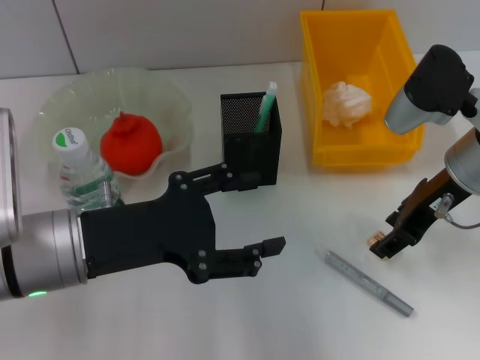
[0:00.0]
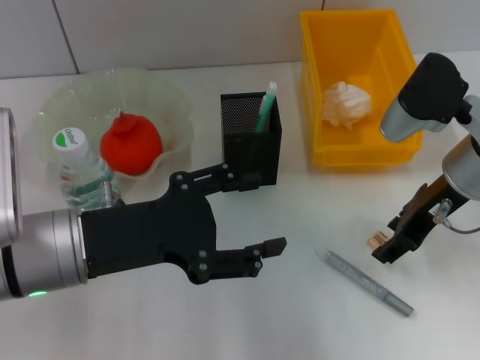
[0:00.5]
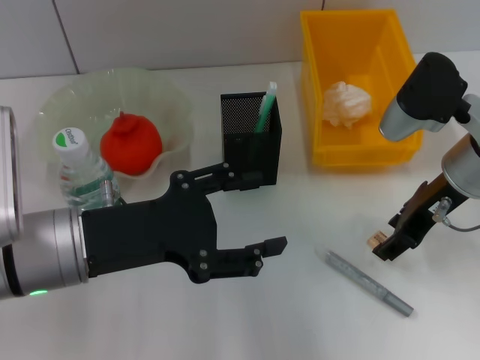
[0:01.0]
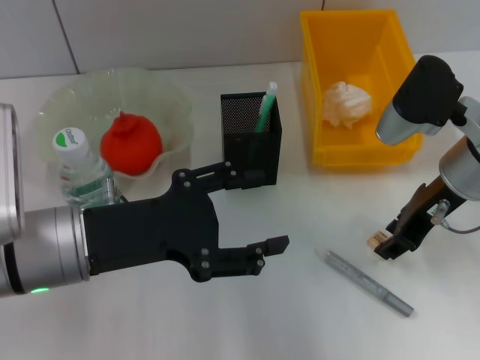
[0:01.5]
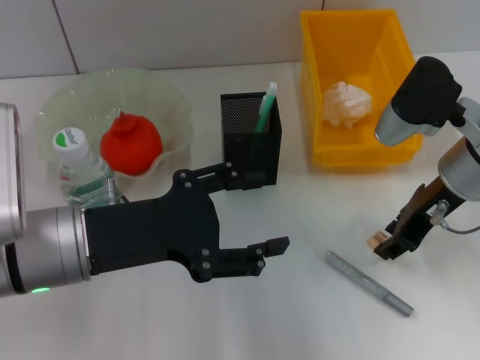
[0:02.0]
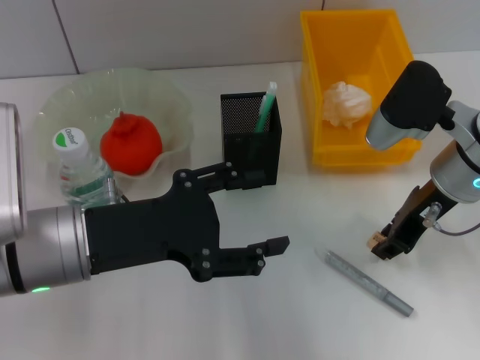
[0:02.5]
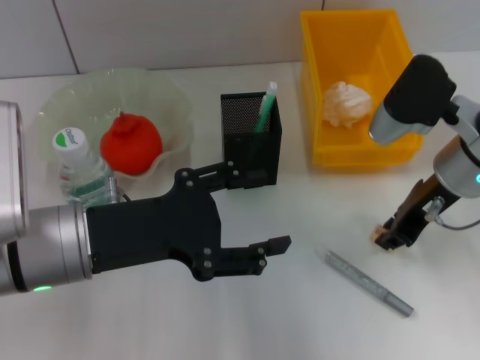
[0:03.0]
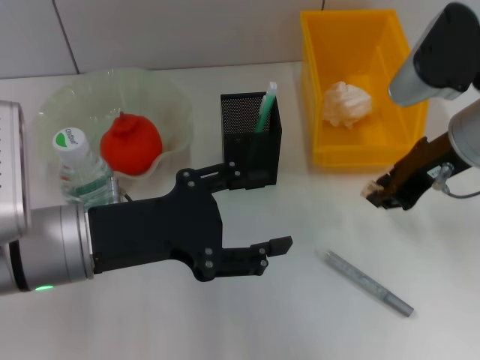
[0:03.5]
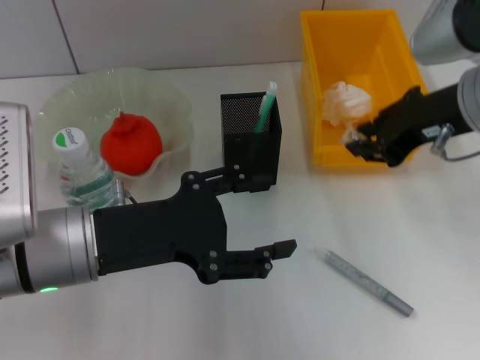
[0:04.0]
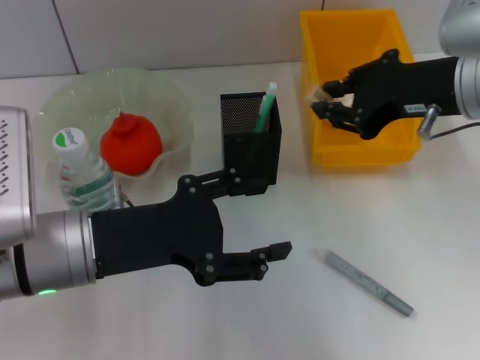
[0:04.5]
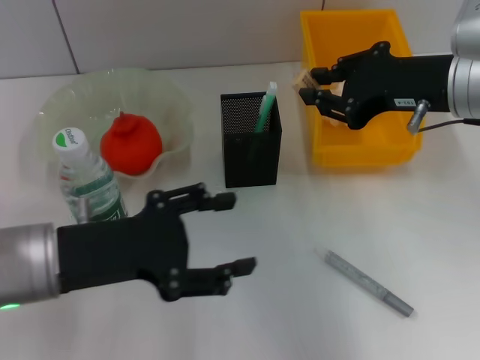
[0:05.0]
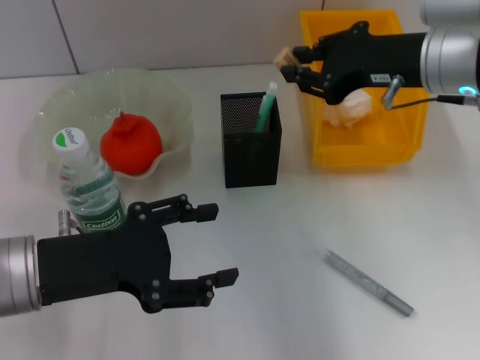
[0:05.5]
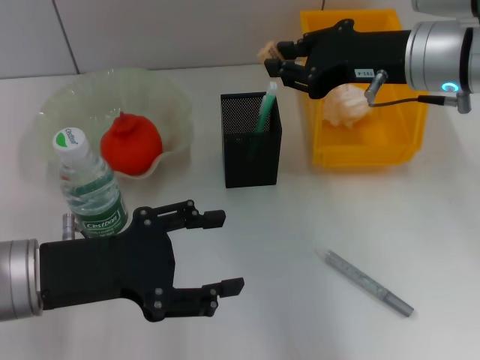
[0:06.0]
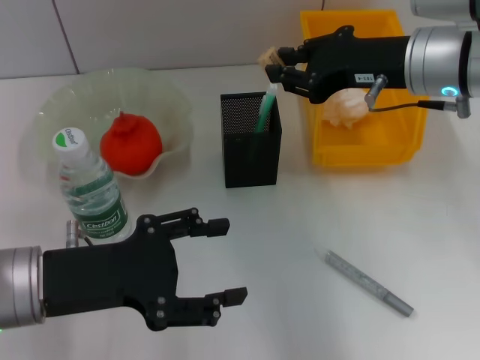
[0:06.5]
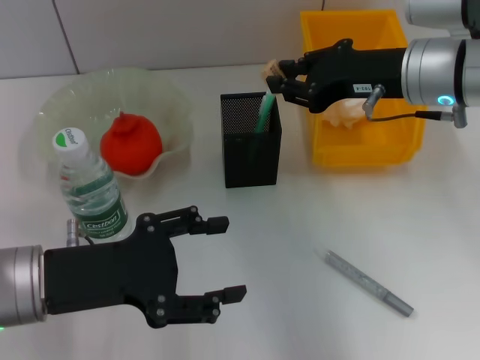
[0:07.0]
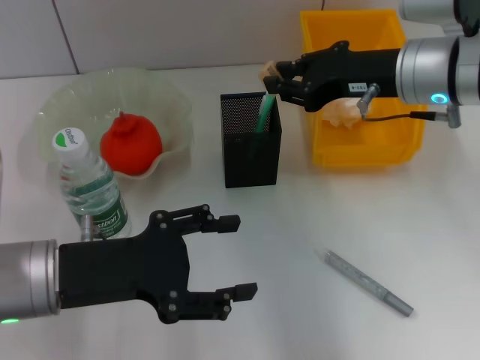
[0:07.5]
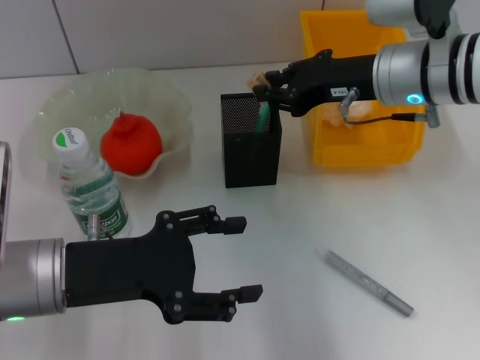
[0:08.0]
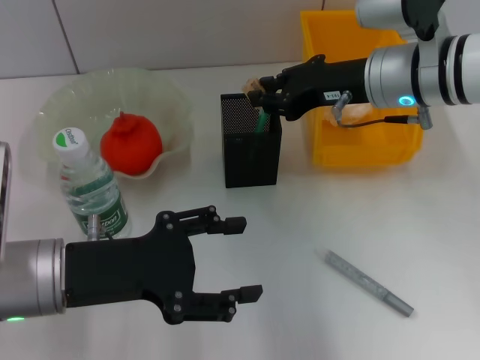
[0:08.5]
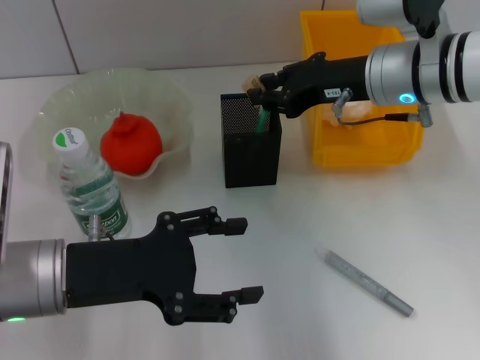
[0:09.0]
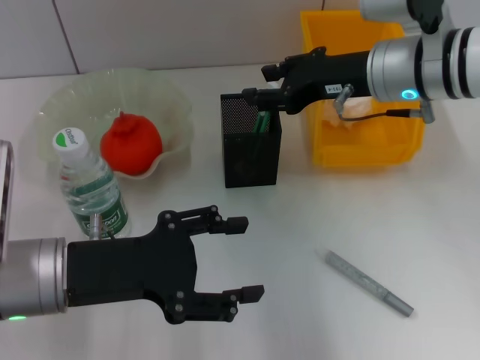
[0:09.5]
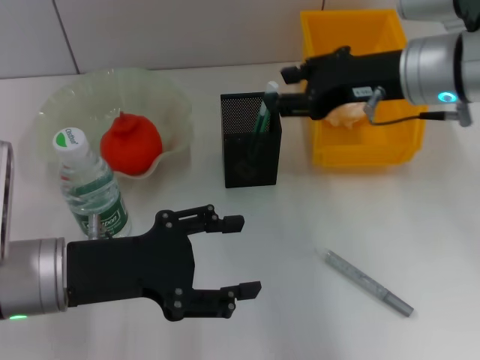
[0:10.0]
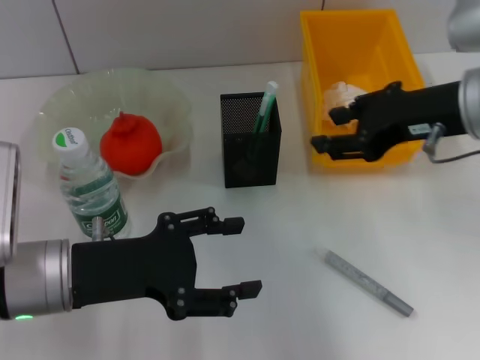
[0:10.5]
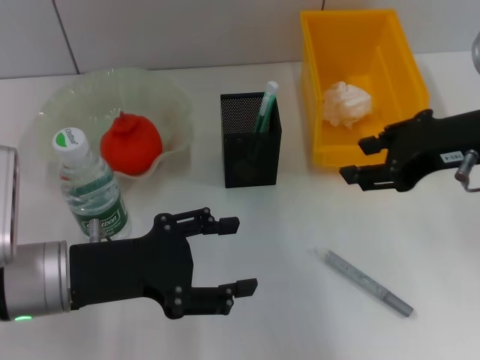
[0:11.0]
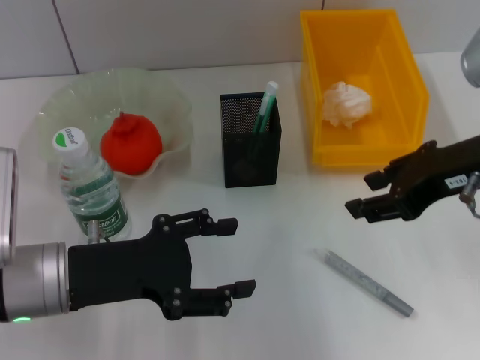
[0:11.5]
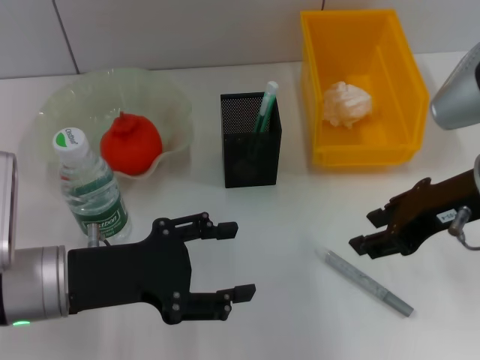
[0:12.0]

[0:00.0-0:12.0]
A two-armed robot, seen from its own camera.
Step, 0:00.0 to 0:02.5: Grab the eraser with the right hand.
Step, 0:03.0 to 0:09.0: Put the eraser into the pen holder with the right hand.
0:00.0 to 0:02.0: Neither gripper changes place.
0:02.0 to 0:04.0: The right gripper travels upward by approximately 10 cm.
0:06.0 to 0:08.0: The grippers make only small movements.
0:08.0 to 0:10.0: The right gripper opens up.
0:10.0 to 0:12.0: The right gripper is displaced backward by roughly 10 cm.

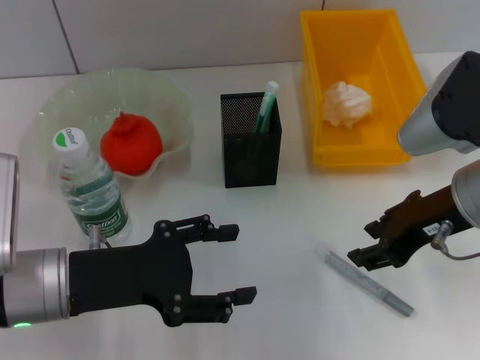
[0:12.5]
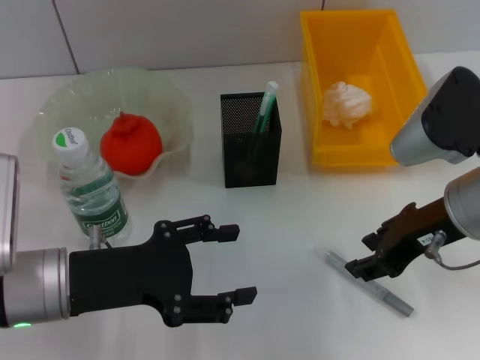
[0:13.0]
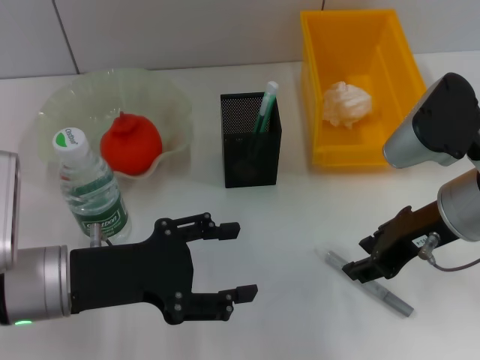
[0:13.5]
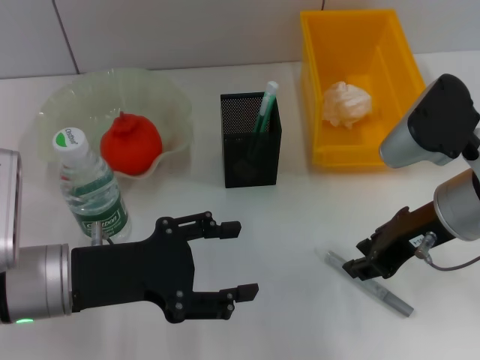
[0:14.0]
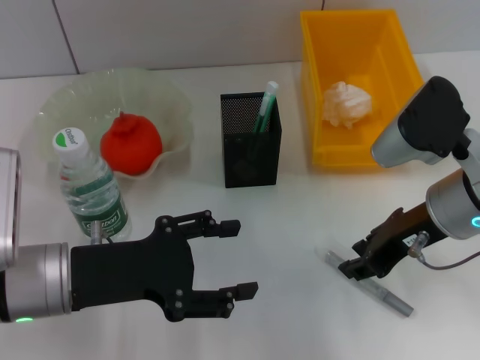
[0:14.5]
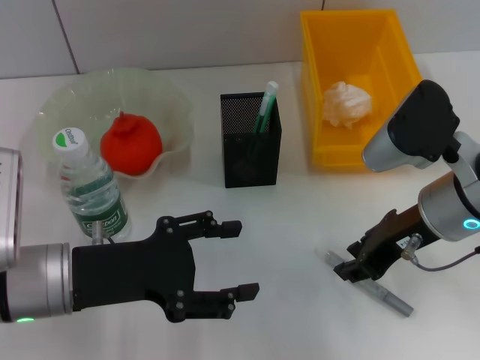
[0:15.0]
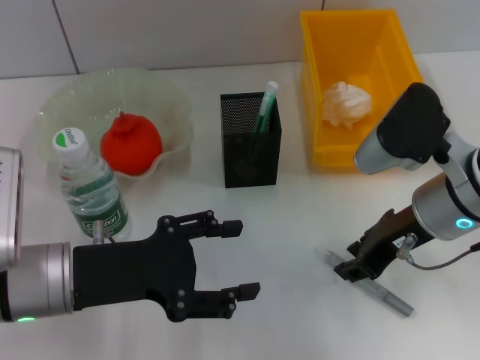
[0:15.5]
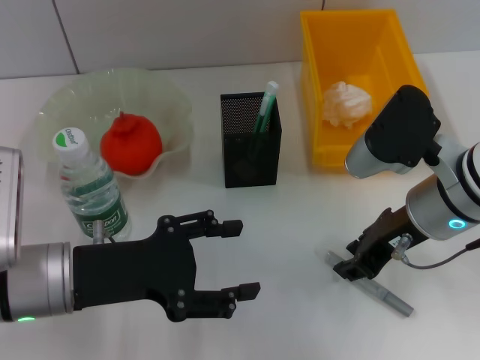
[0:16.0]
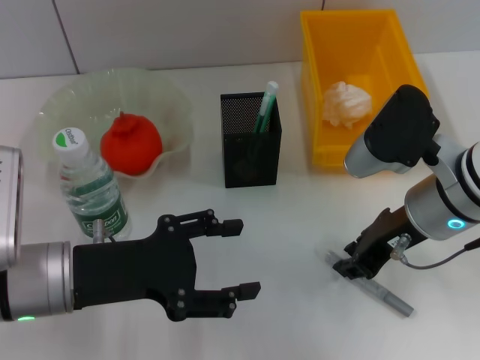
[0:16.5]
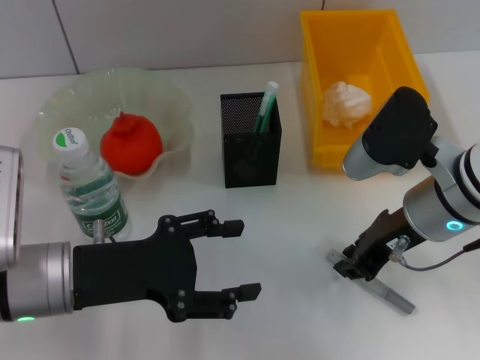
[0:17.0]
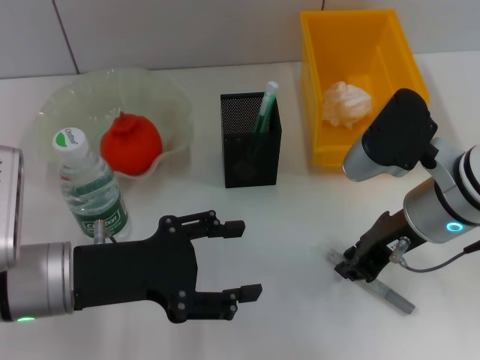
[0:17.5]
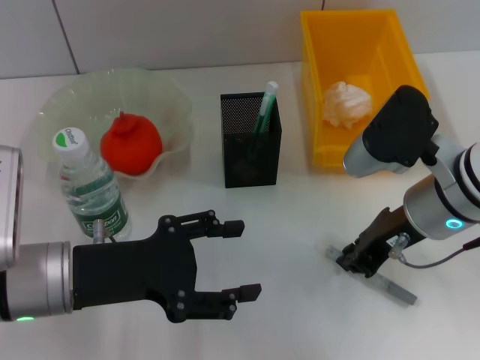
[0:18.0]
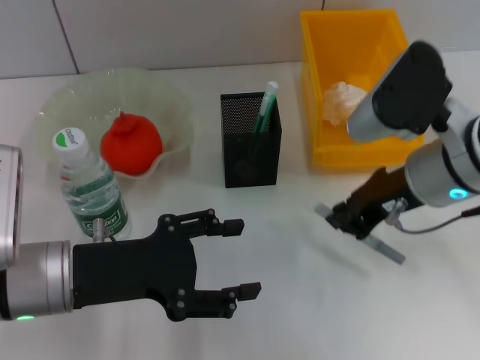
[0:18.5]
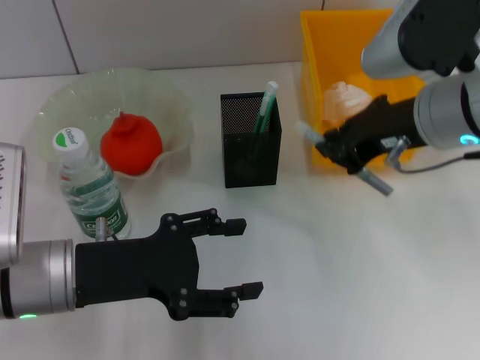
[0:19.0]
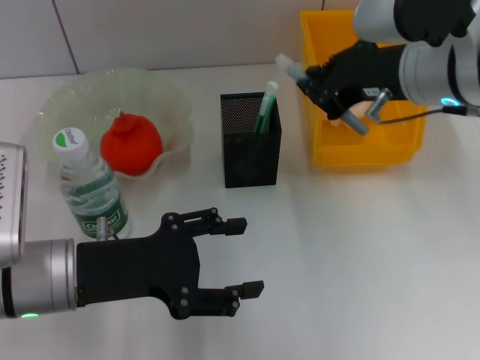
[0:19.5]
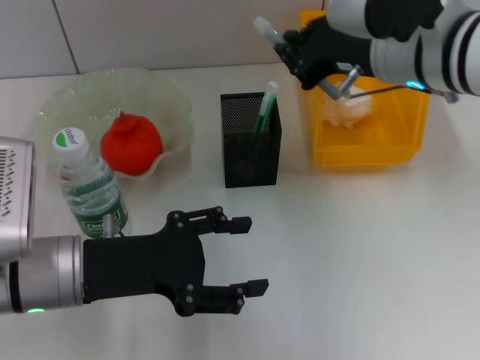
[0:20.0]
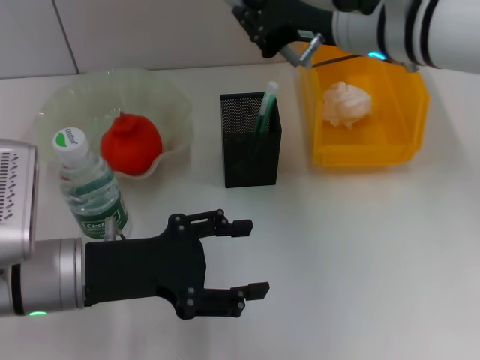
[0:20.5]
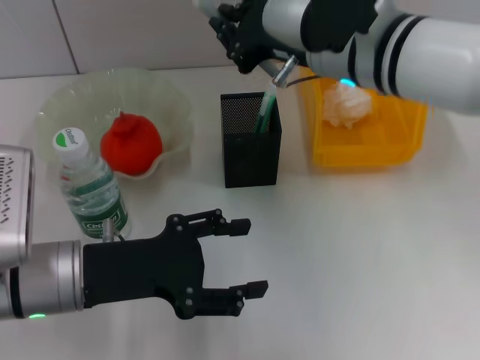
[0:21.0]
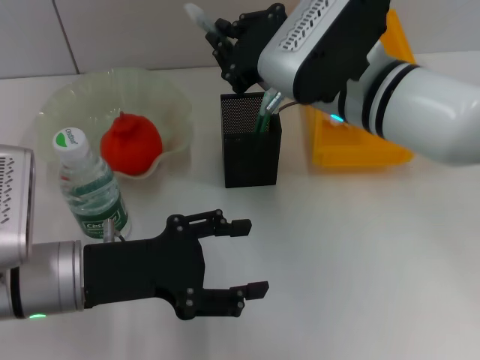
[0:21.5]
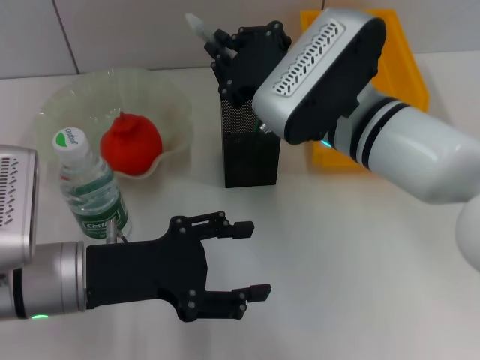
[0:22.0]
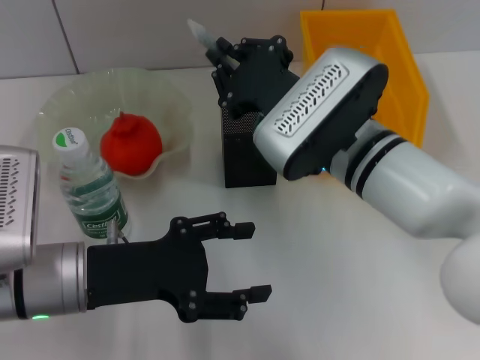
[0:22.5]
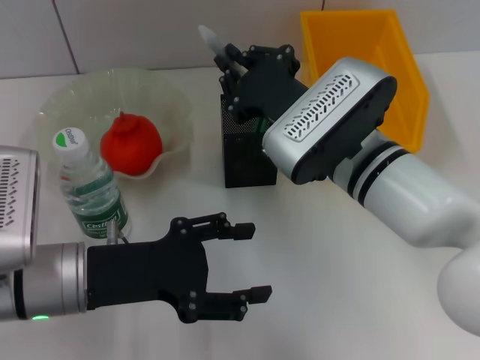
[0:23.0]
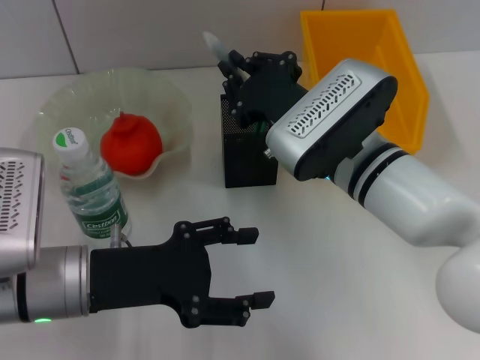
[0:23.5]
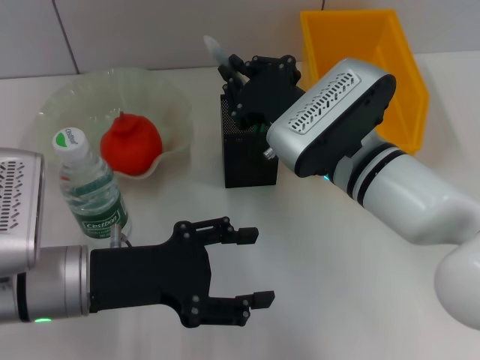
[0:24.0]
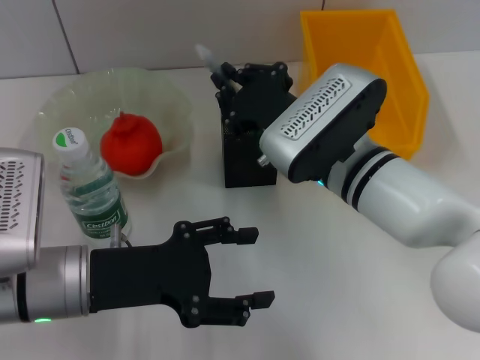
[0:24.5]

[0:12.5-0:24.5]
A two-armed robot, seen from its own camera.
Step, 0:12.5 to 0:17.5: Grab the gray glue with the right hand.
0:12.5 to 0:16.5: The grippers stay close to where they were, moving slightly.
0:16.5 to 0:18.5: The right gripper closes its fingers.
0:18.5 to 0:20.5: The right gripper travels upward, forward and to the left by some 10 cm.
0:20.5 to 0:22.5: The right gripper heads downward, covering roughly 10 cm.
0:22.5 to 0:24.5: The grippers move only a little.

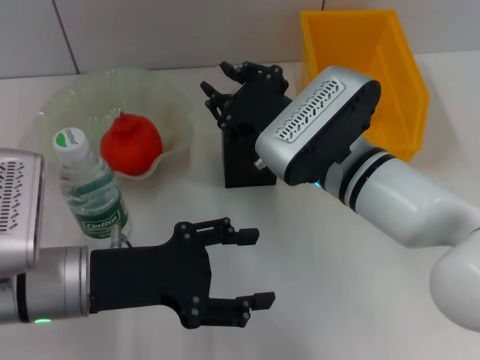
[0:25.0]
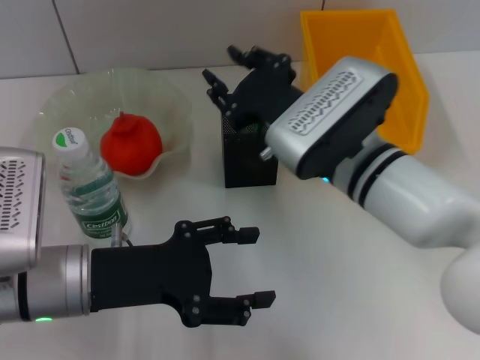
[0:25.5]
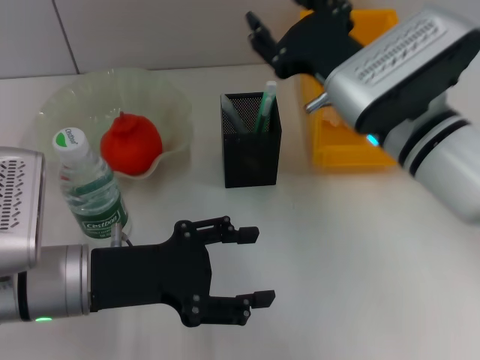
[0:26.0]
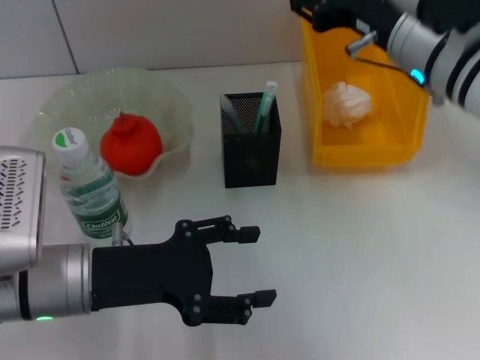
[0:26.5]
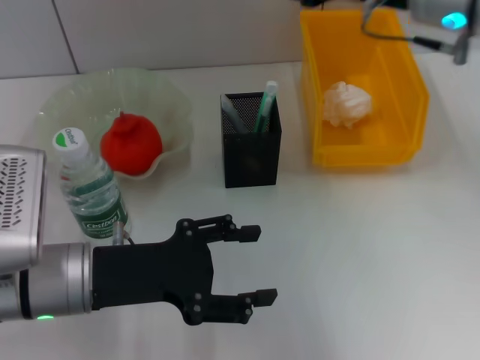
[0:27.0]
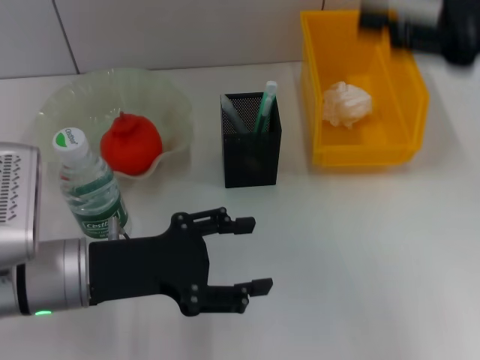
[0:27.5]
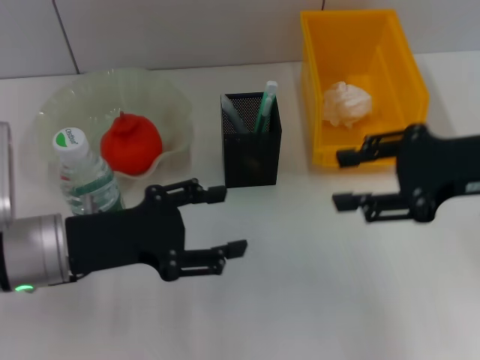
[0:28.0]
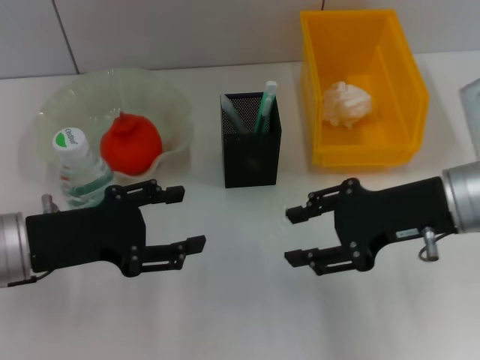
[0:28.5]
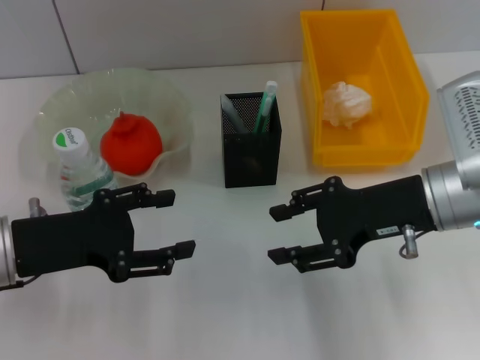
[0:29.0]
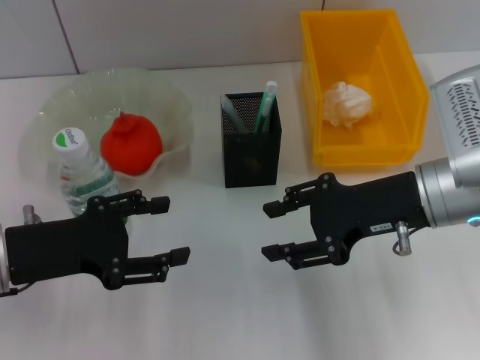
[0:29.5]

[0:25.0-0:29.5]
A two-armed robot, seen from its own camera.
0:25.0 to 0:27.0: The right gripper shifts roughly 15 cm upward and to the right, and opens up.
0:27.0 to 0:29.5: The left gripper travels to the left by about 5 cm, while the right gripper travels downward and backward by approximately 15 cm.
